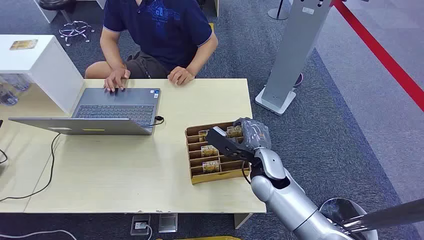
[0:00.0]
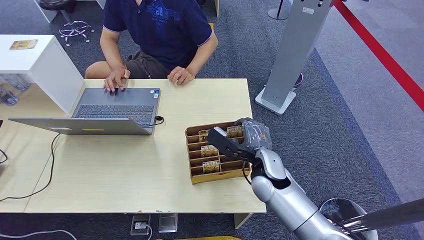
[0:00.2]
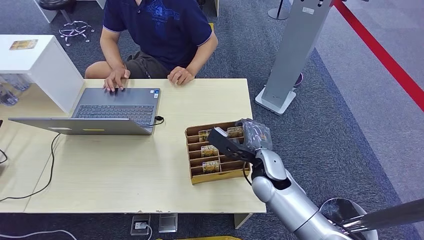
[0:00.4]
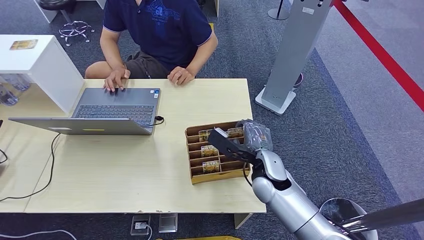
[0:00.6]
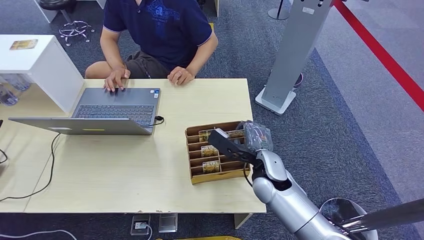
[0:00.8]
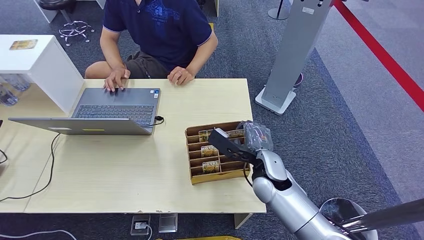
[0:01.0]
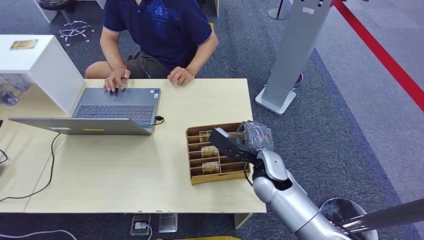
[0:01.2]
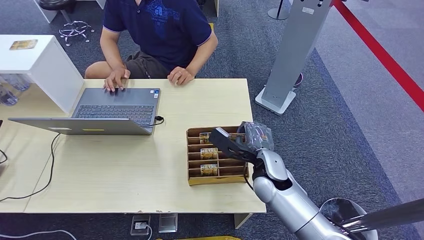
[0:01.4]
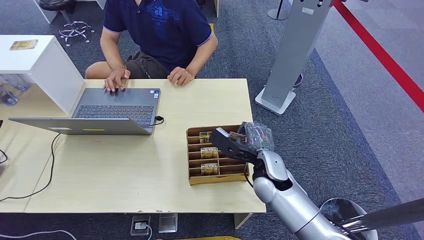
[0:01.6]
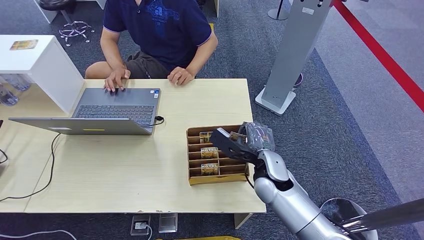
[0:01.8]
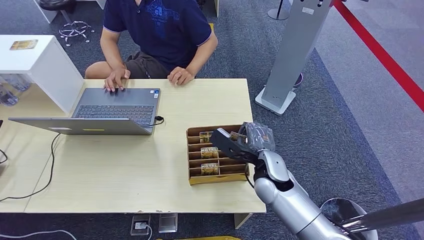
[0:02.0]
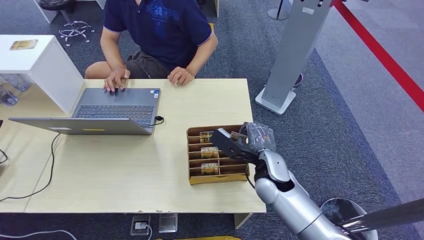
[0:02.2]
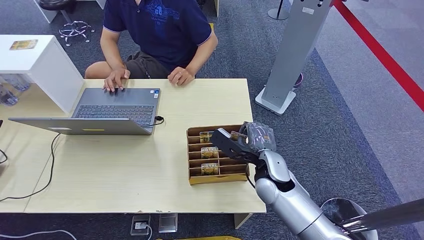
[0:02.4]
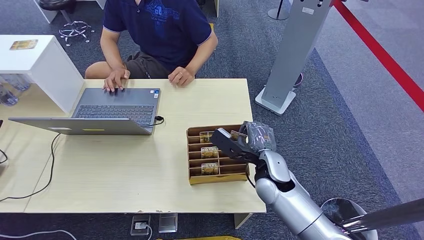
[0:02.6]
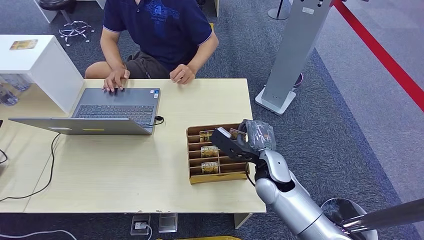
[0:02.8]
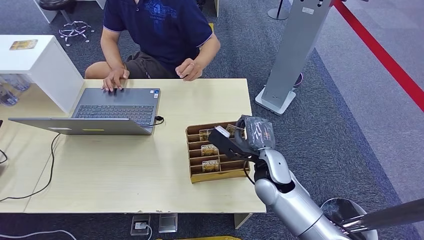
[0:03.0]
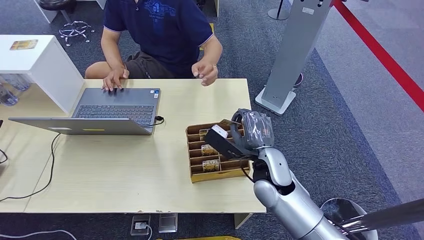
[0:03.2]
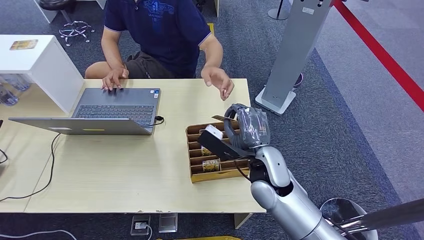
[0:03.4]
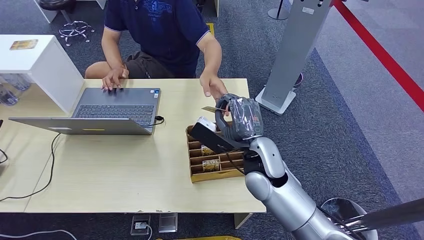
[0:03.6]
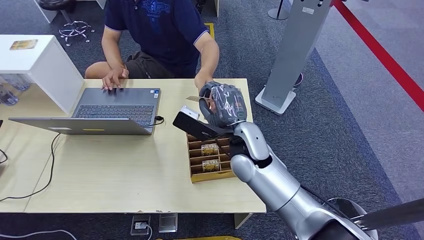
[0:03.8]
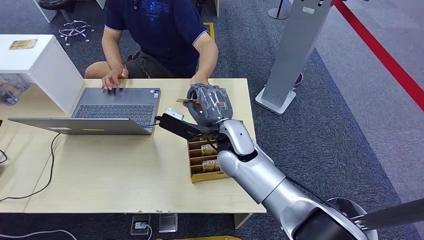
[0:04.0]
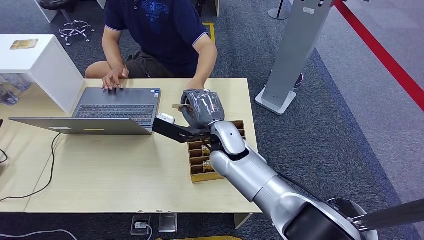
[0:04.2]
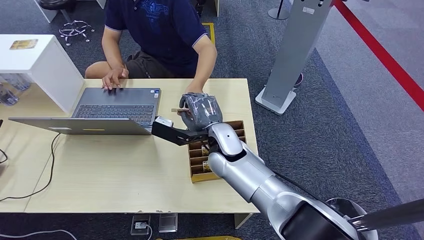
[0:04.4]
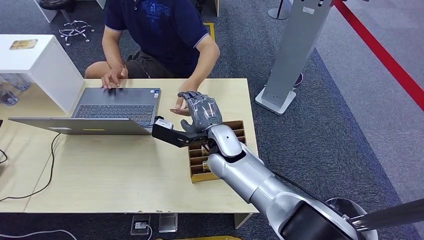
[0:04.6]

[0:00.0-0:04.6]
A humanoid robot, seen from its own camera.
Step, 0:00.0 to 0:03.0: Pick up the key card from the card box.
Step, 0:03.6 to 0:04.6: Hand the key card to the target.
0:01.6 to 0:03.0: There are only small adjustments of the hands.
0:03.0 to 0:04.6: The right hand heads to the left and forward, covering about 15 cm.

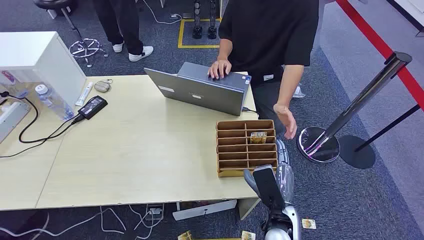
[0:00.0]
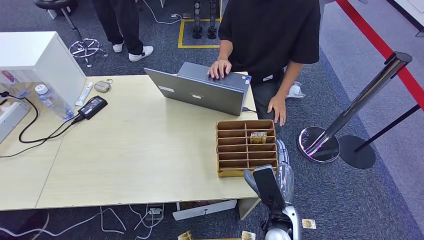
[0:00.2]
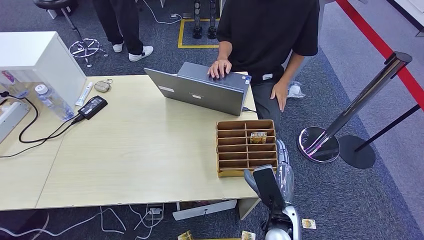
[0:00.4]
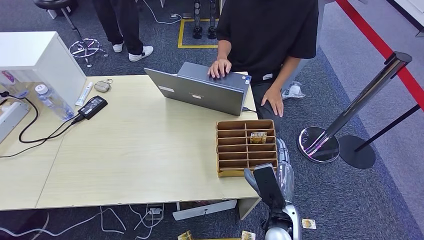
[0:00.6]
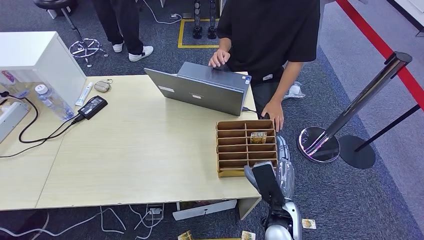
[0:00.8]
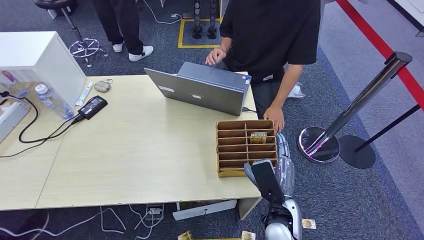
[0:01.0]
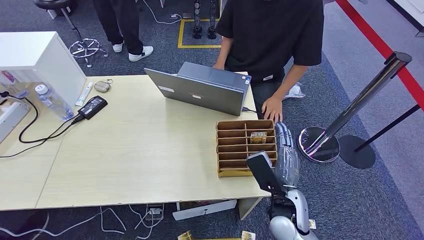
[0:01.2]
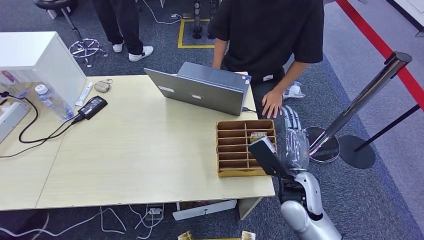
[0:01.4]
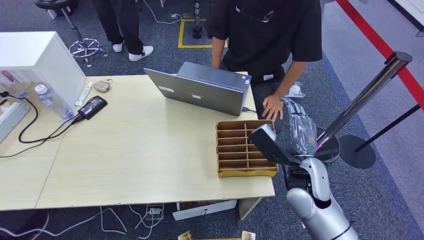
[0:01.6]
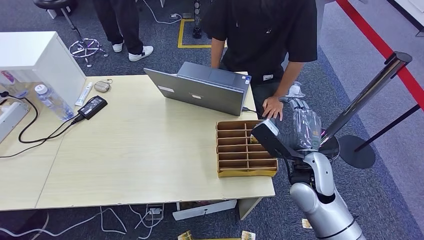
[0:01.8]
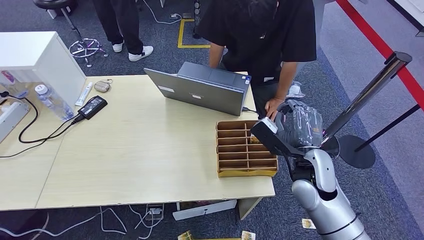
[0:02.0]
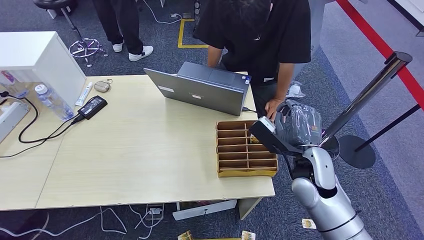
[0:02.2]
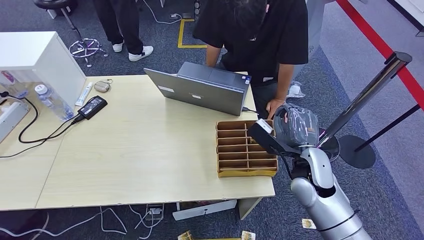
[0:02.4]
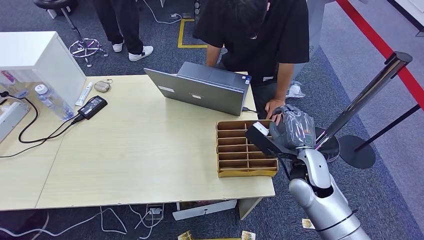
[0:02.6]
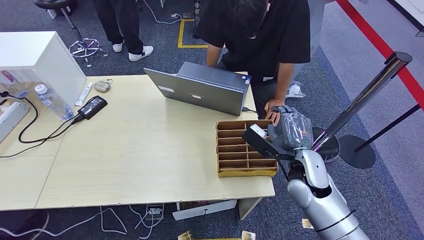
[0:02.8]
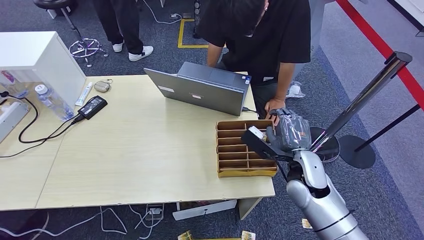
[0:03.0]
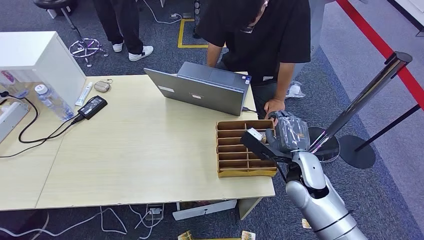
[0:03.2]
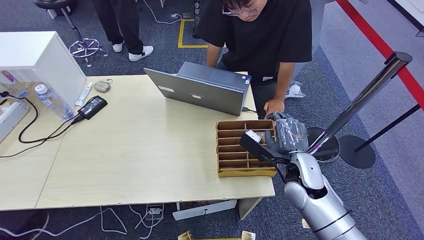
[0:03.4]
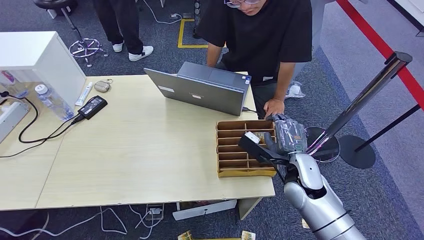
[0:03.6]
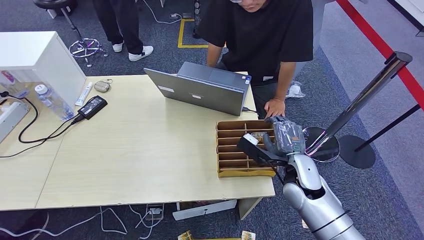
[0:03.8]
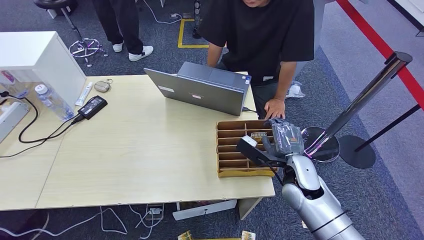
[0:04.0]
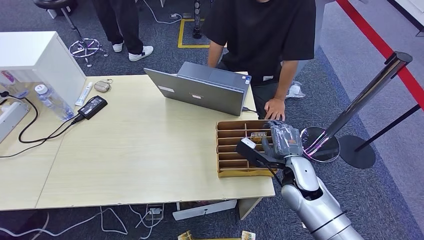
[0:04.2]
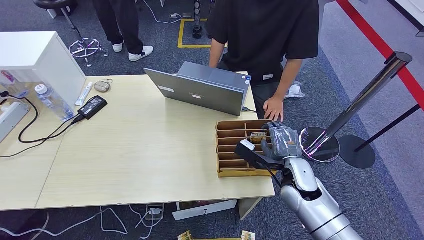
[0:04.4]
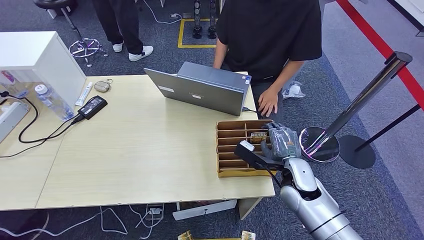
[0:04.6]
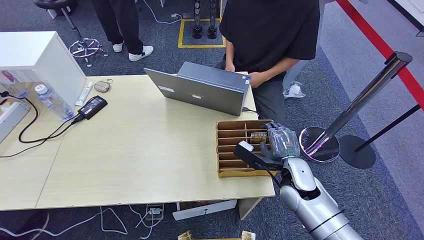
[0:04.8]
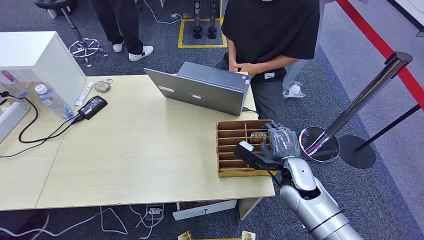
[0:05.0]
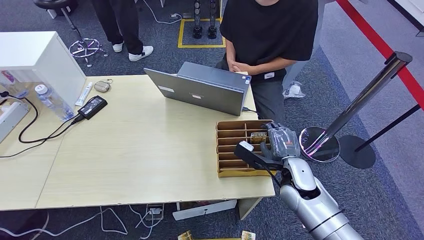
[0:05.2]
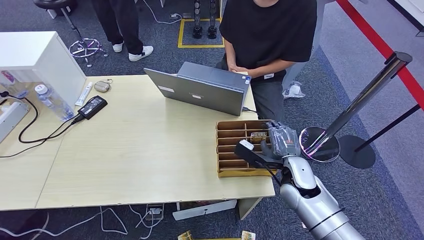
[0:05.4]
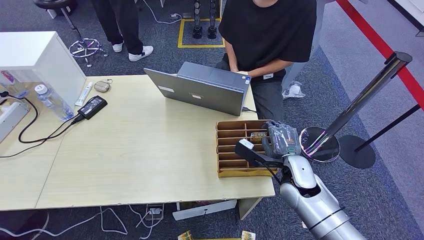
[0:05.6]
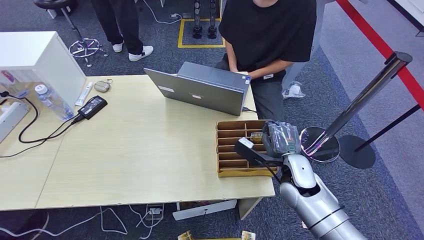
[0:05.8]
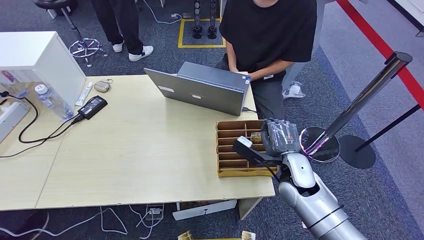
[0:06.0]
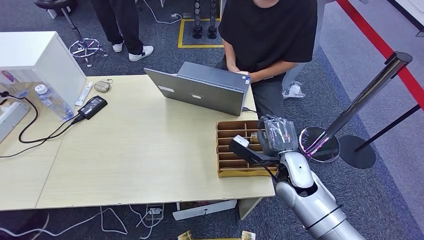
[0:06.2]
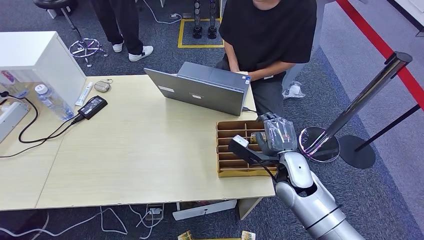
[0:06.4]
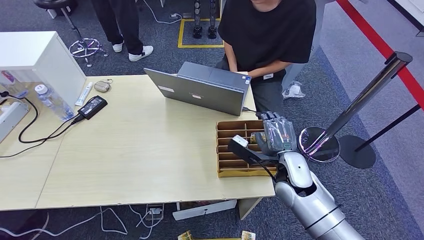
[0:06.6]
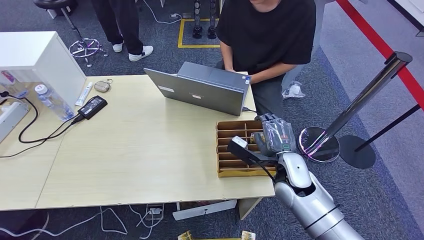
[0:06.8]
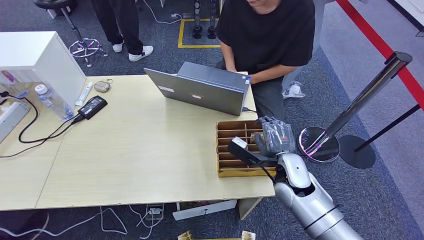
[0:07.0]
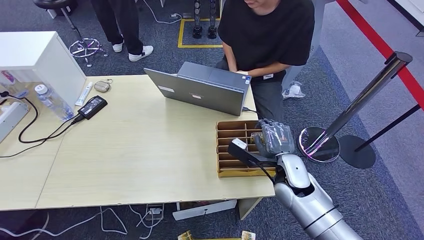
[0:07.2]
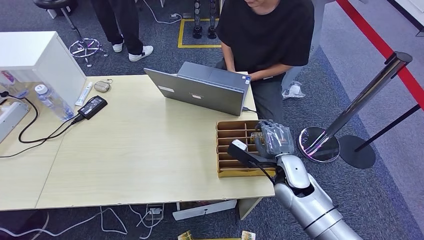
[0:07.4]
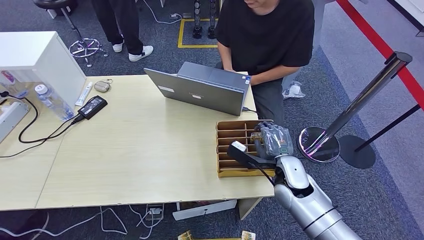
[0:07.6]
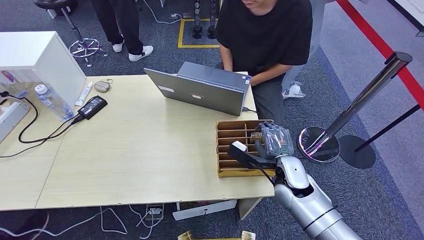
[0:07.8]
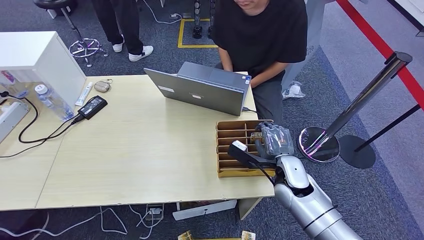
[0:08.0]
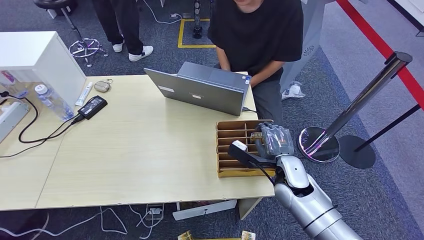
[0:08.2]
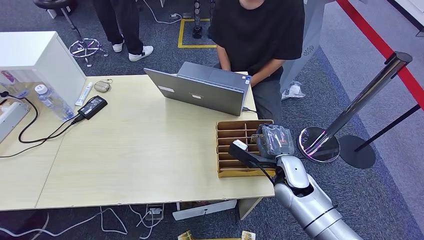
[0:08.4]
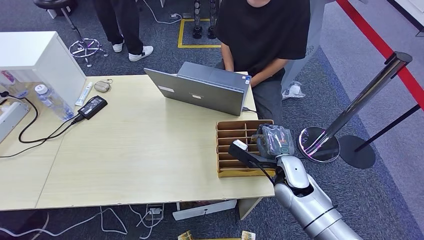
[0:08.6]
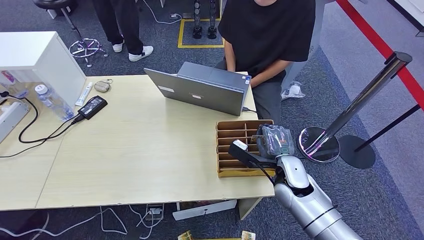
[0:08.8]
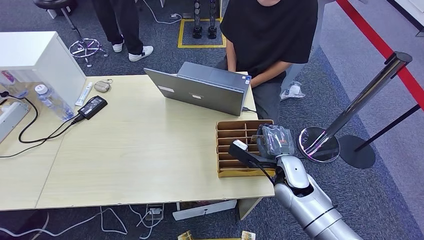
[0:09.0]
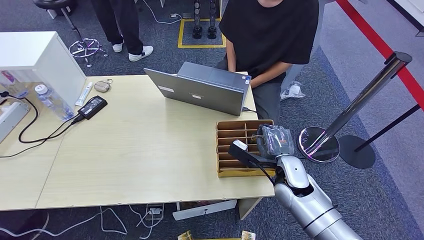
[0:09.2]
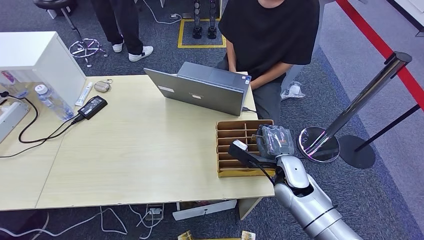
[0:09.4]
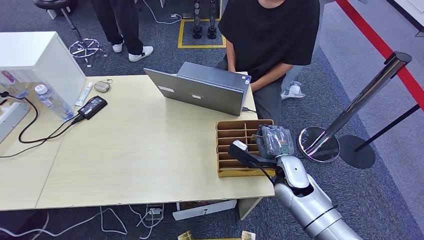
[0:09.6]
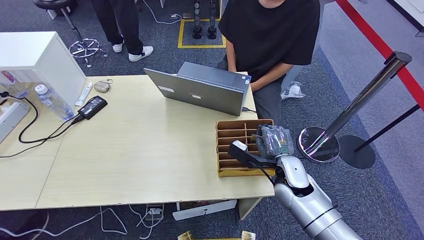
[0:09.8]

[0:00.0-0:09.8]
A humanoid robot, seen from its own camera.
0:01.4 to 0:02.8: The right hand changes place by roughly 5 cm.
0:02.8 to 0:04.2: The hands make only small movements.
0:04.2 to 0:05.6: The two hands keep their place.
0:05.6 to 0:08.4: The hands move only a little.
0:08.4 to 0:09.8: Both hands stay put.

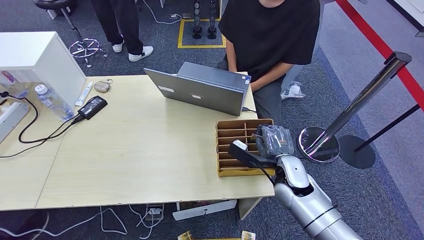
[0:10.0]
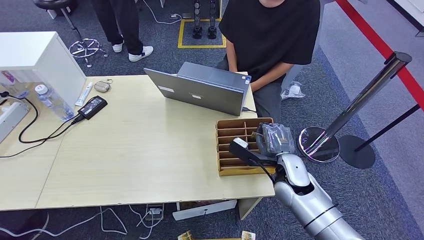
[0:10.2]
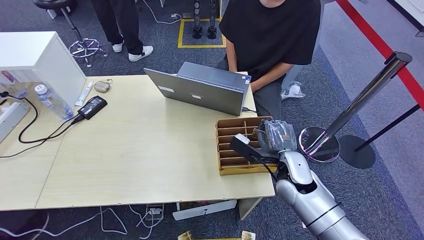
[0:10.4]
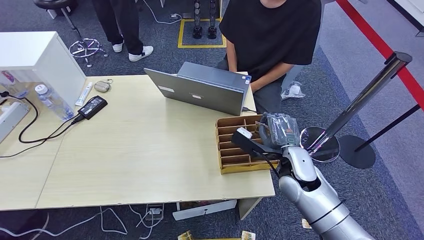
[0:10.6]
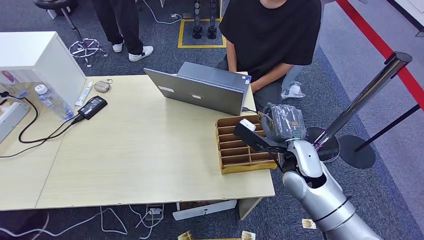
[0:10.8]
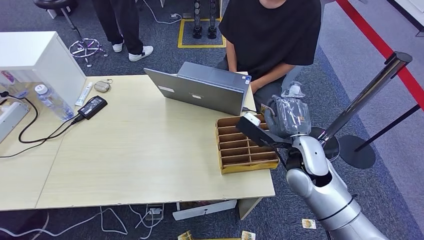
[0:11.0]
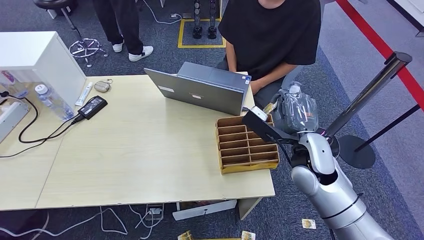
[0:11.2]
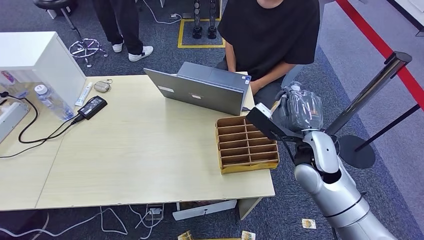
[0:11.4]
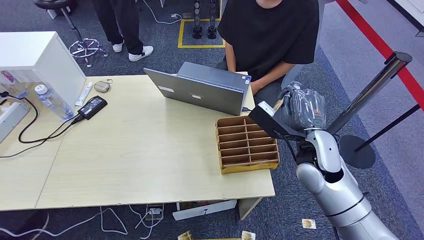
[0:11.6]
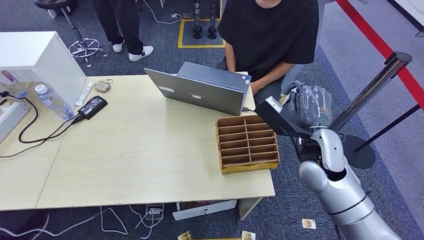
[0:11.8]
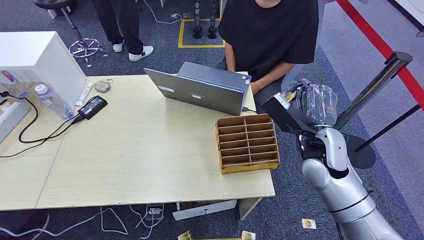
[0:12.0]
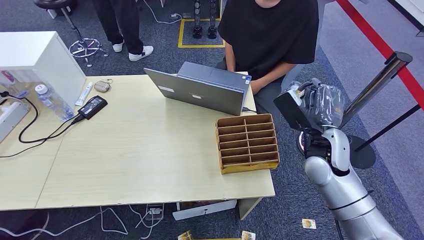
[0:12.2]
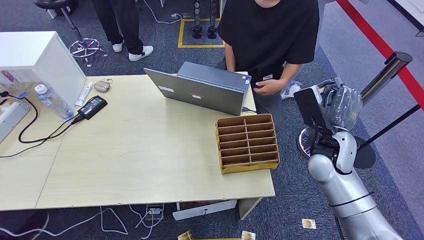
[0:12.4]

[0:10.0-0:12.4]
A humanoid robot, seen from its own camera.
Step, 0:11.4 to 0:12.4: Hand the key card to the target.
0:10.0 to 0:11.2: The right hand goes about 10 cm upward.
0:11.2 to 0:12.4: The right hand goes some 5 cm to the right.
